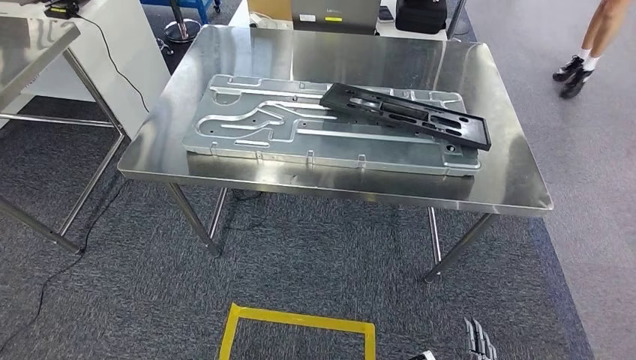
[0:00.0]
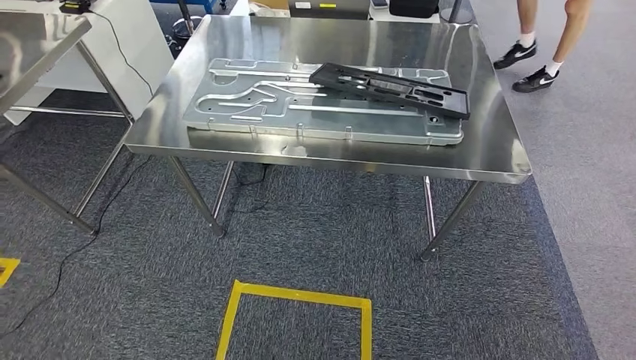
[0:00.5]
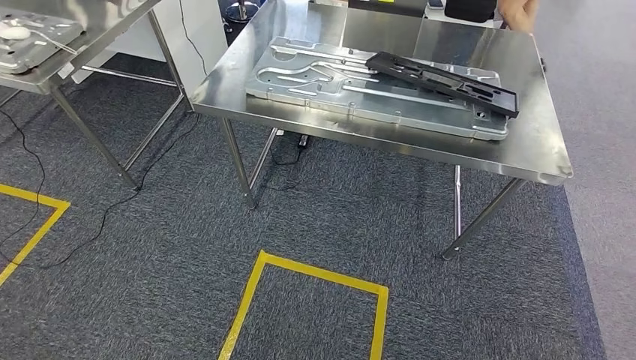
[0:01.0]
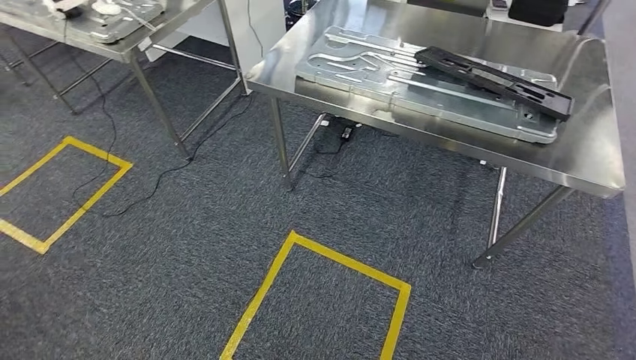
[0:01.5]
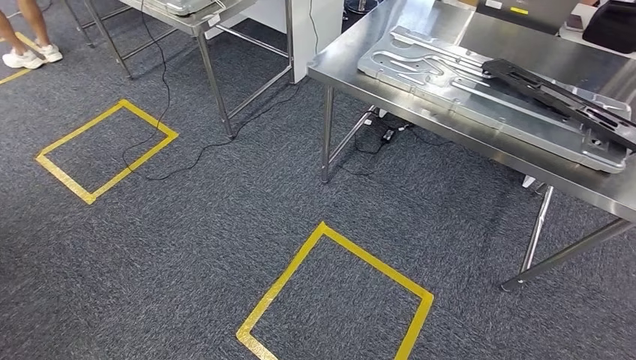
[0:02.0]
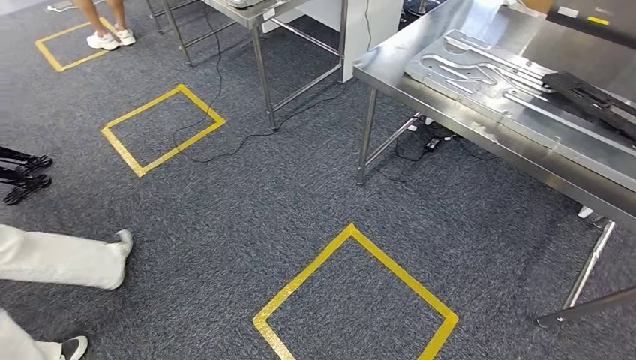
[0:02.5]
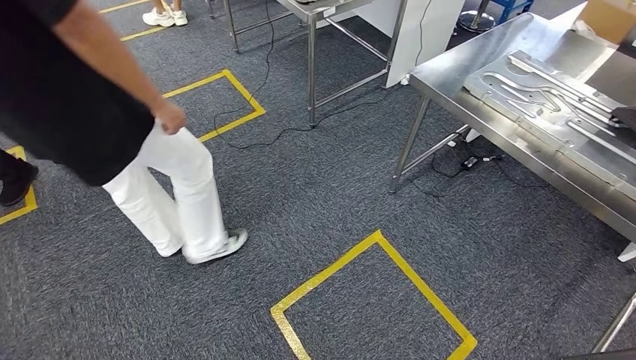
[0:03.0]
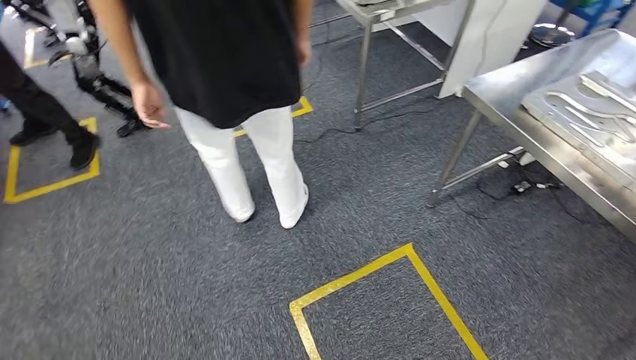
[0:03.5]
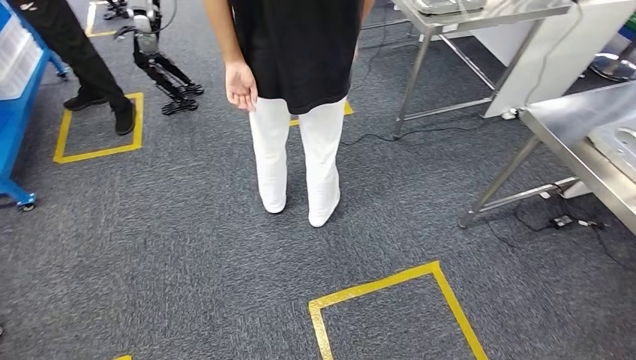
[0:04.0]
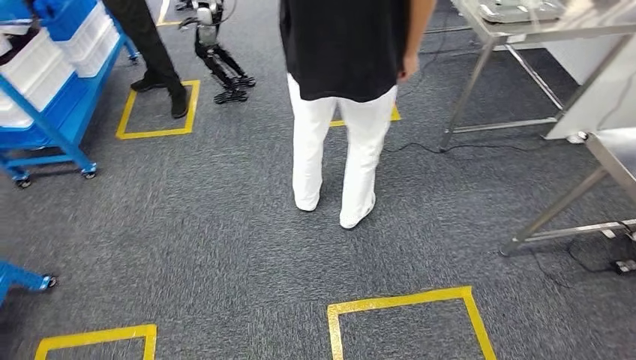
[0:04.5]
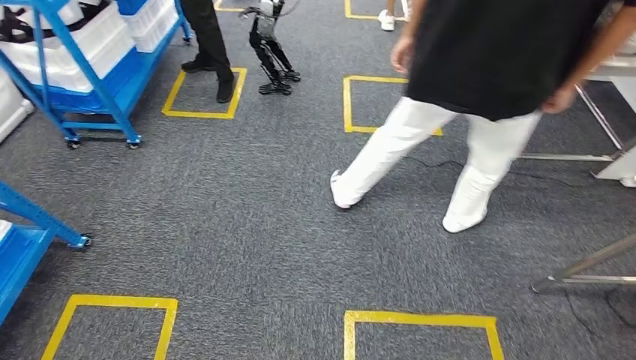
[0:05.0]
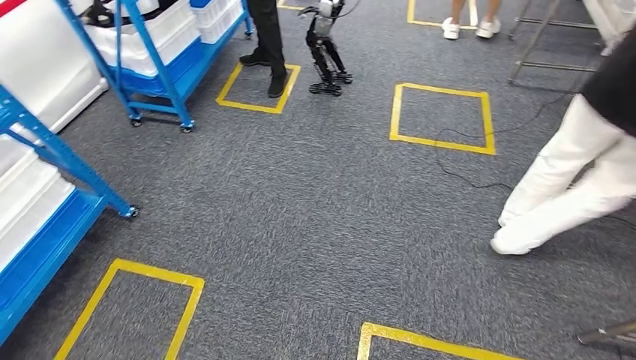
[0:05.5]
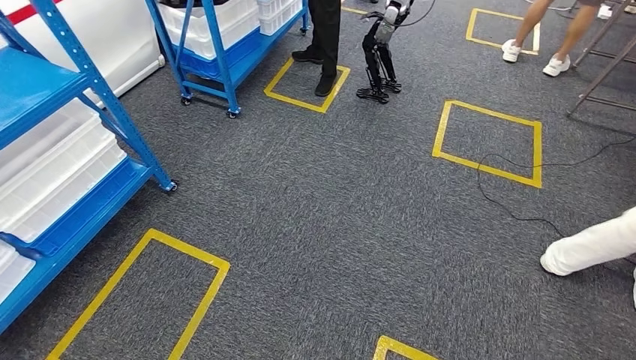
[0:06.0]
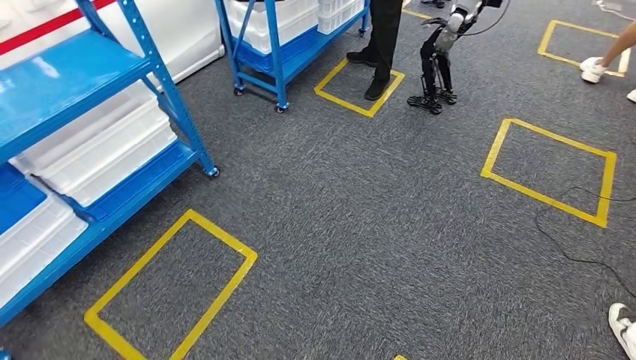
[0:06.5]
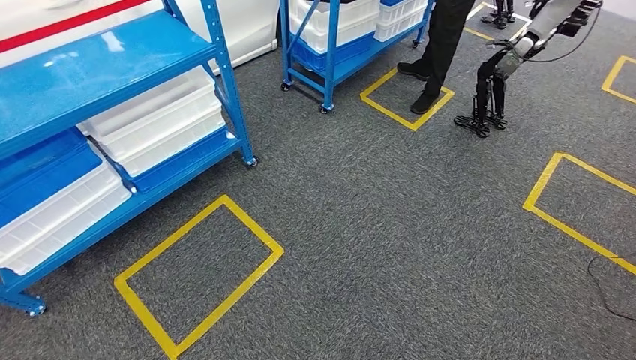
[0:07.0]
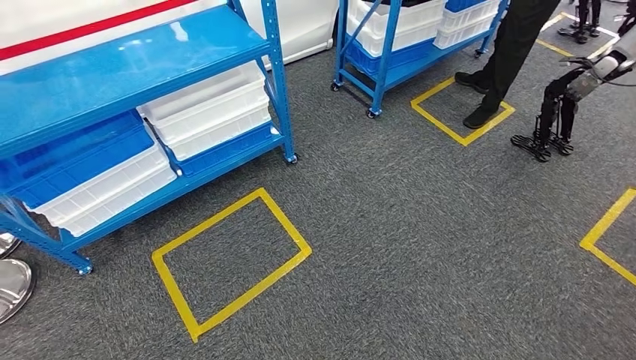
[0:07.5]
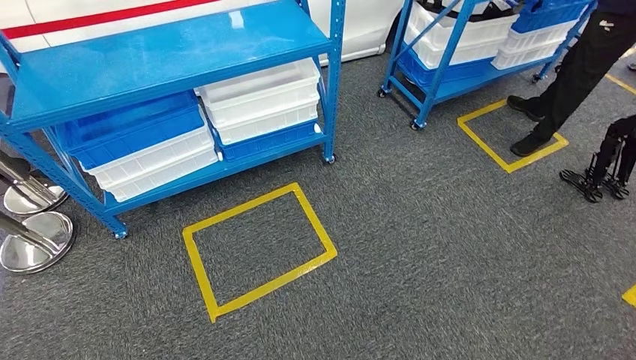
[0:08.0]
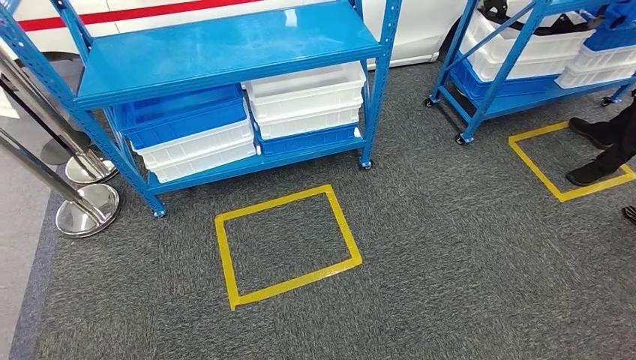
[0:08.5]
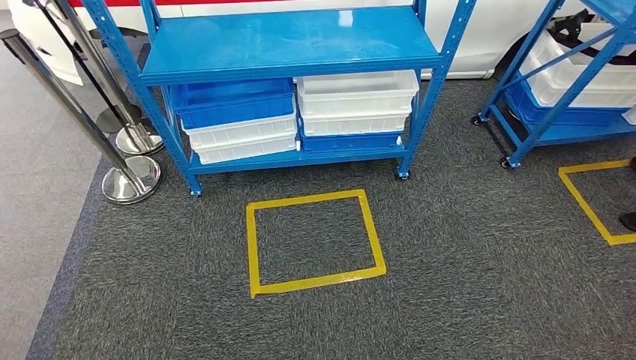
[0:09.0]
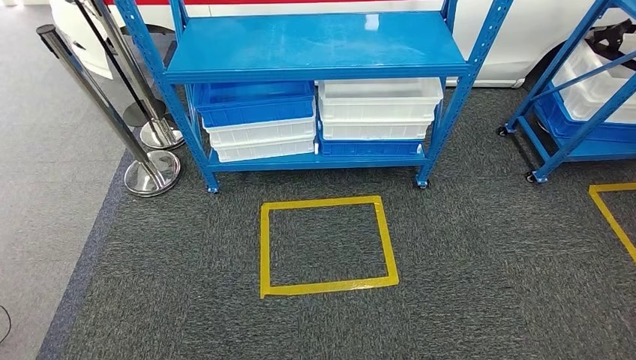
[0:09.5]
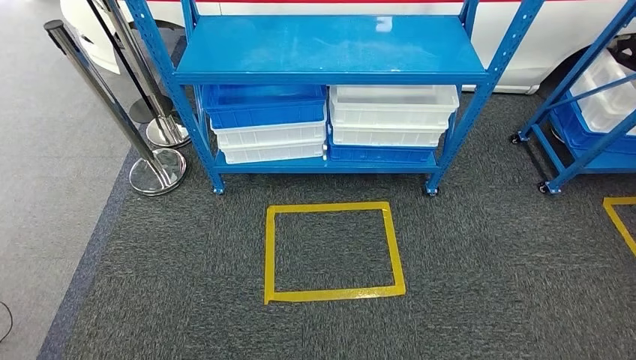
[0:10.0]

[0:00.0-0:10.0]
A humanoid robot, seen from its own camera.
Step, 0:00.0 to 0:10.0: Move to the initial position of the shelf.

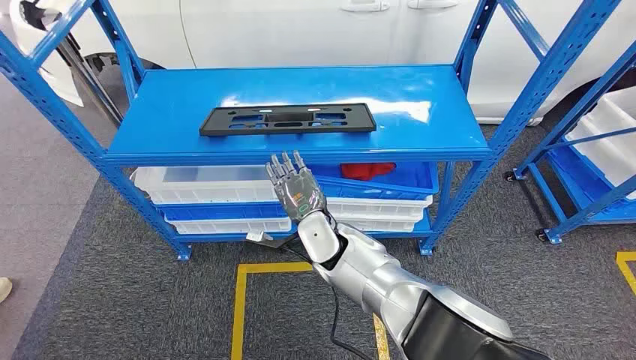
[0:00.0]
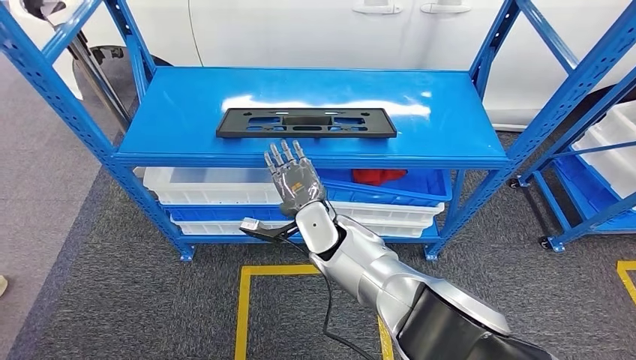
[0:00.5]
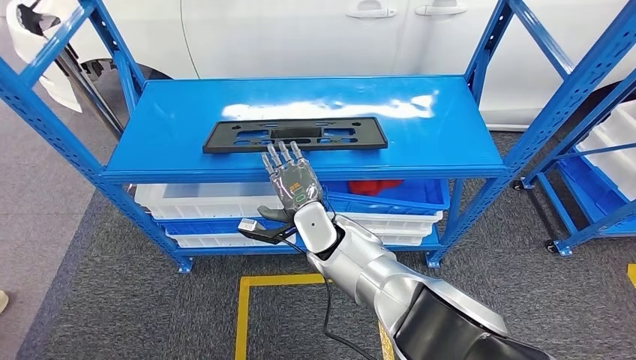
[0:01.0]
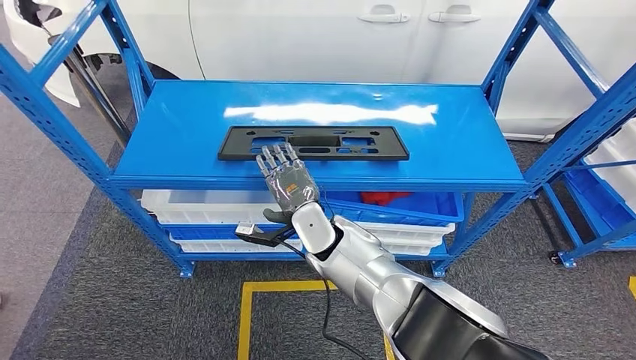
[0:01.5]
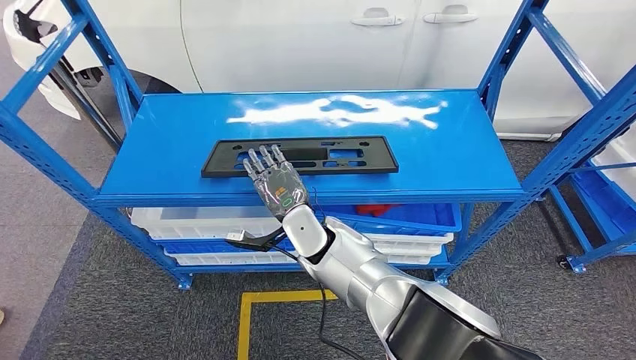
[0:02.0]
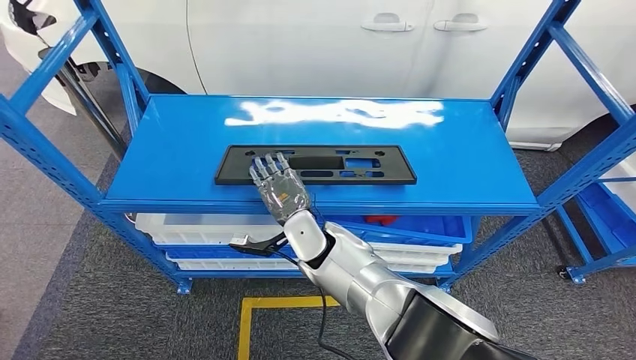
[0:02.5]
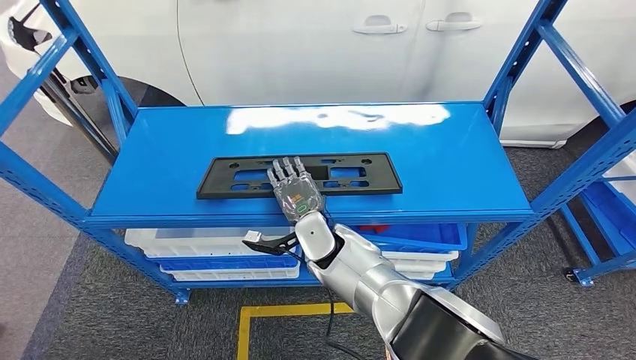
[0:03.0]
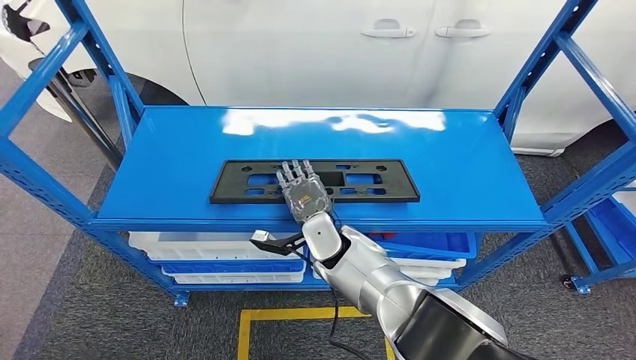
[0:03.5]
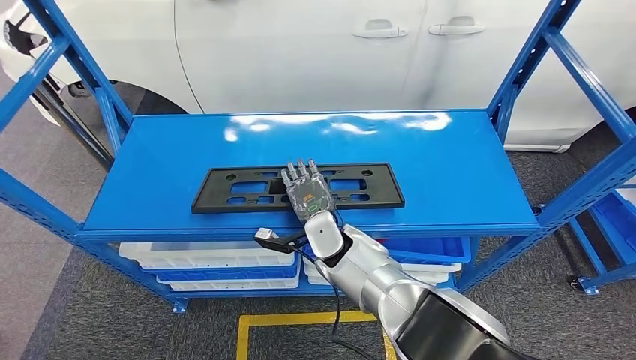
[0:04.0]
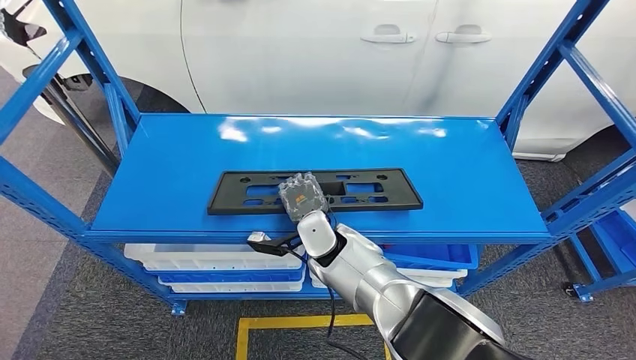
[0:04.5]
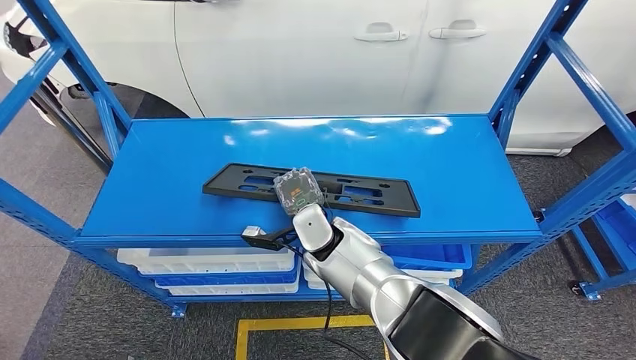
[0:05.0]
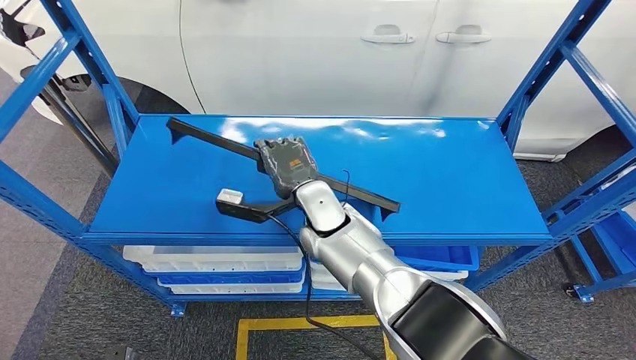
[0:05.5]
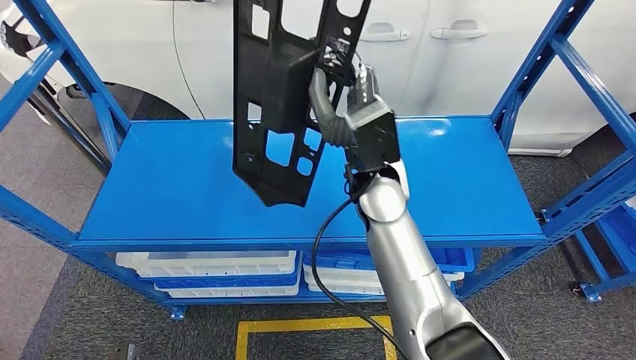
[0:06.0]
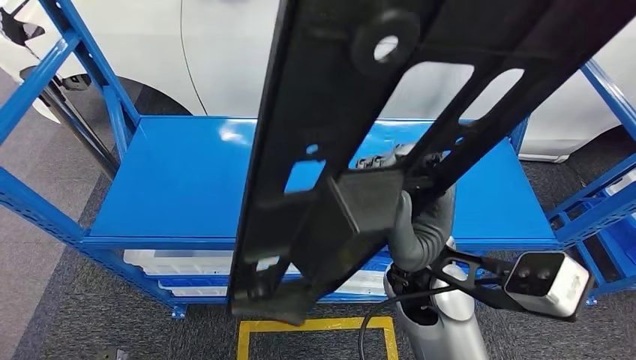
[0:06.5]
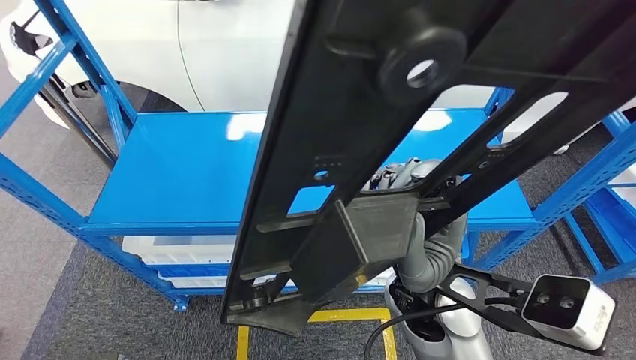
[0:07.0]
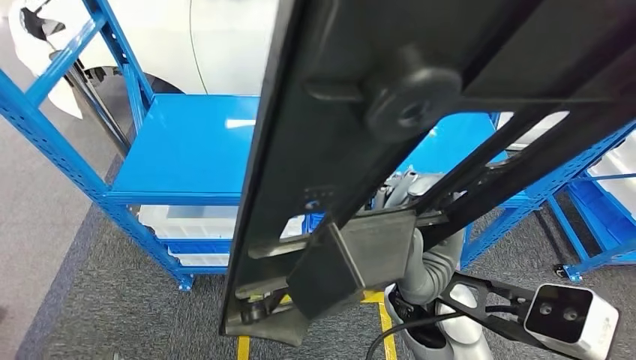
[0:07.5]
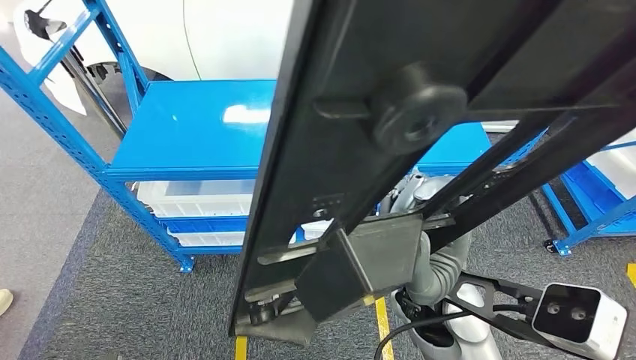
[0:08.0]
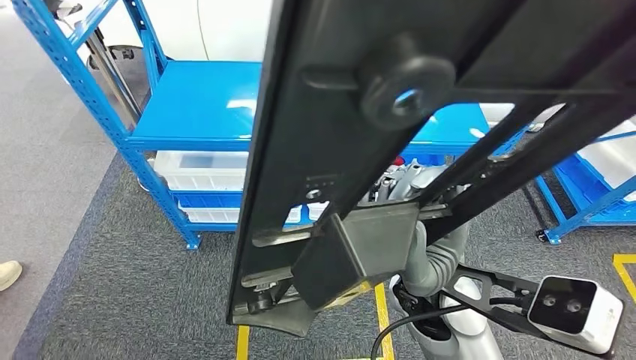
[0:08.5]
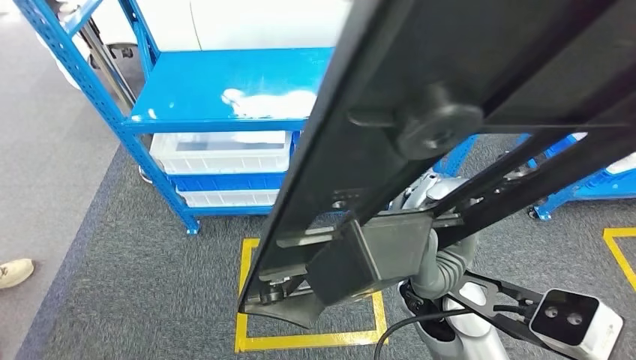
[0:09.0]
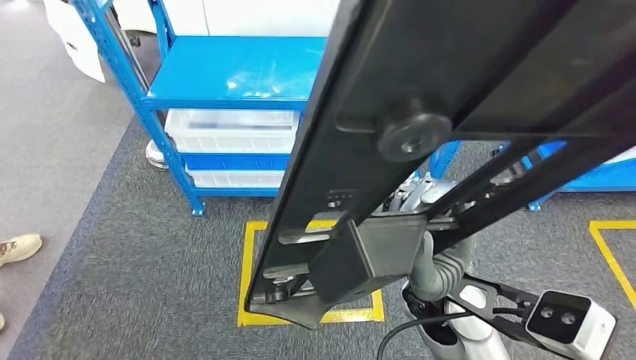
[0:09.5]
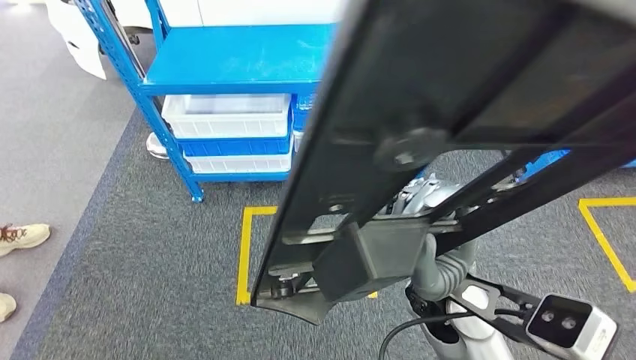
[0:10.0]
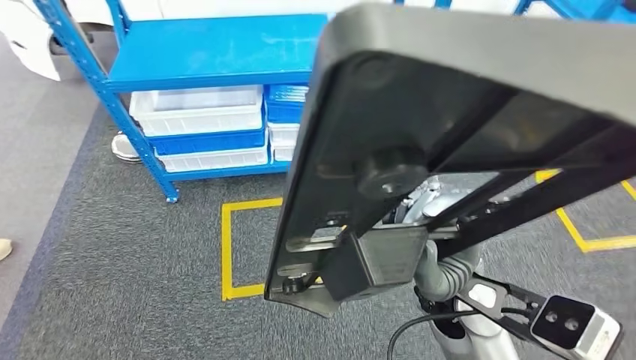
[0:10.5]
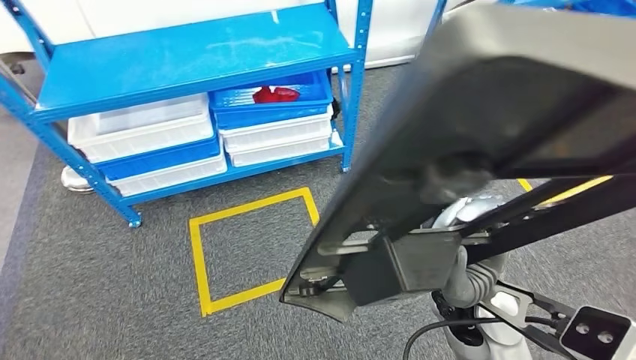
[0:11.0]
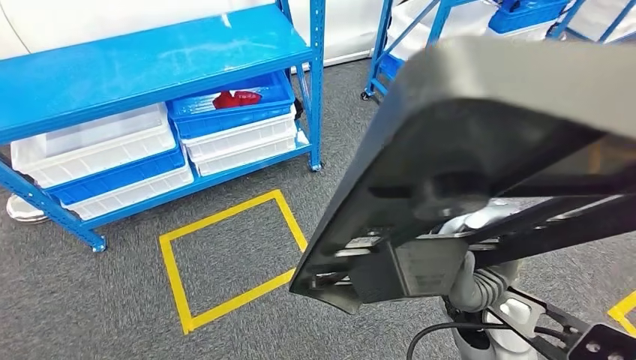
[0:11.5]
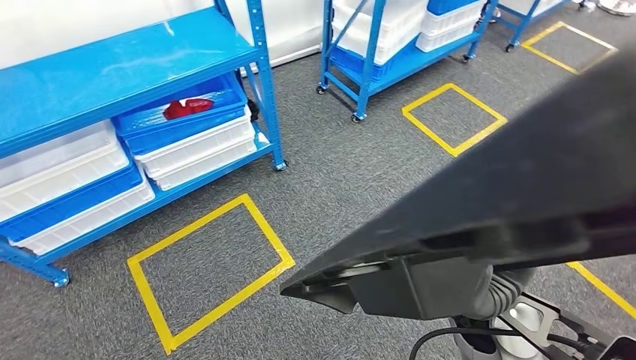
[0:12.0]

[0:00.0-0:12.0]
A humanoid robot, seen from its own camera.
Step, 0:00.0 to 0:05.5: Pick up the large material from the shelf.
